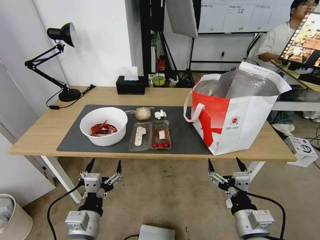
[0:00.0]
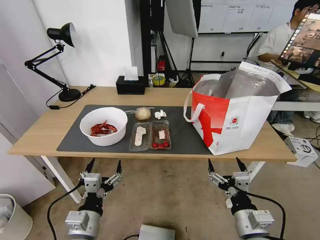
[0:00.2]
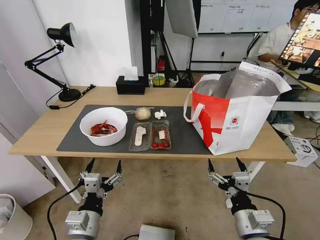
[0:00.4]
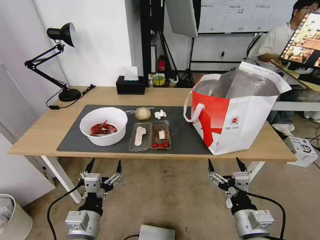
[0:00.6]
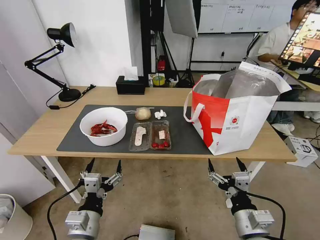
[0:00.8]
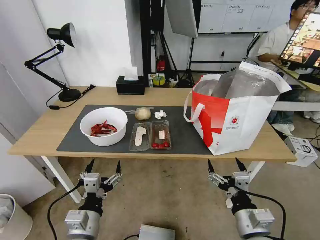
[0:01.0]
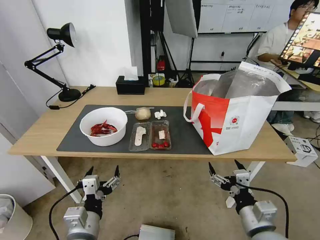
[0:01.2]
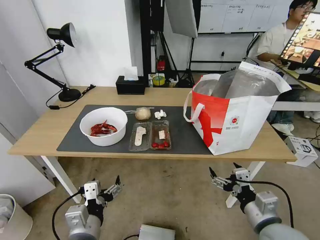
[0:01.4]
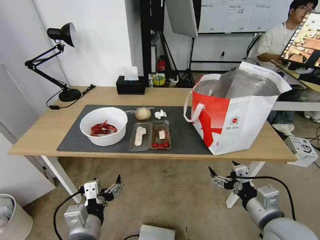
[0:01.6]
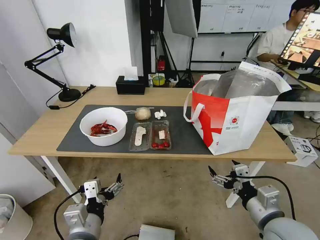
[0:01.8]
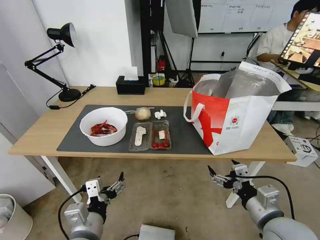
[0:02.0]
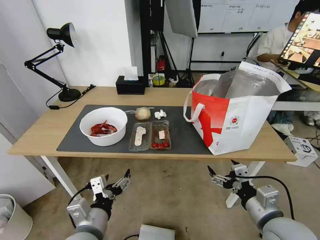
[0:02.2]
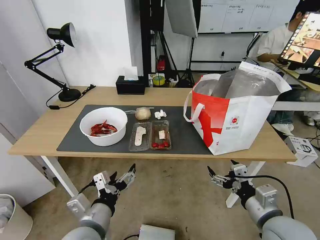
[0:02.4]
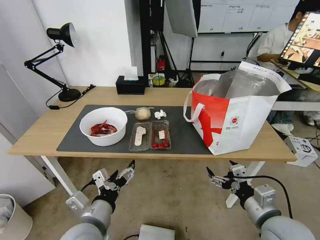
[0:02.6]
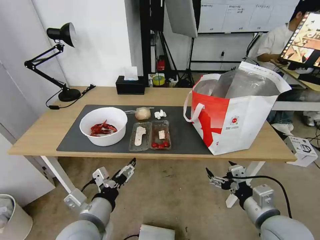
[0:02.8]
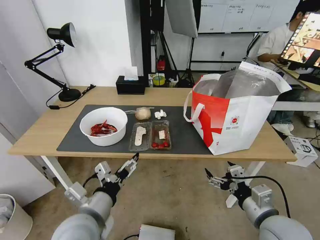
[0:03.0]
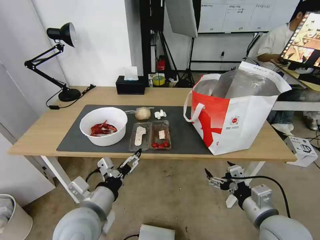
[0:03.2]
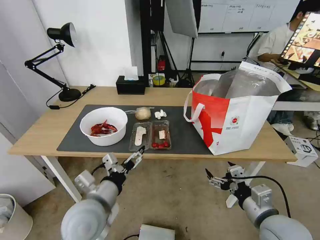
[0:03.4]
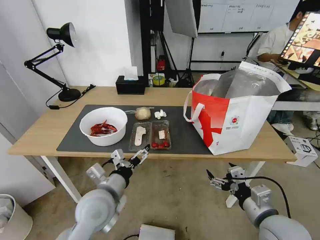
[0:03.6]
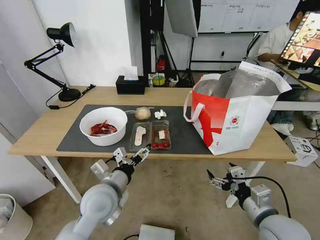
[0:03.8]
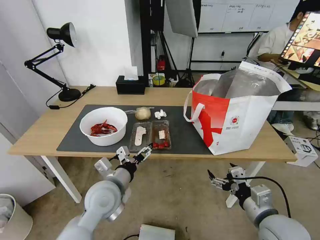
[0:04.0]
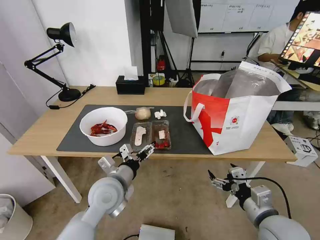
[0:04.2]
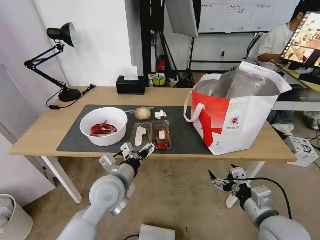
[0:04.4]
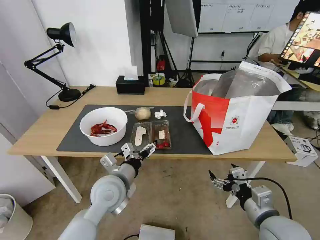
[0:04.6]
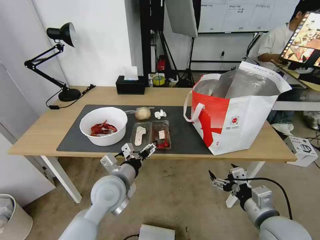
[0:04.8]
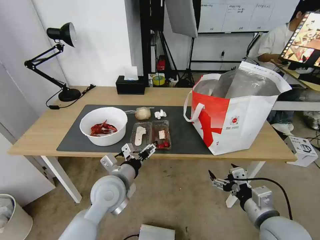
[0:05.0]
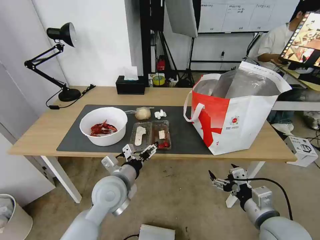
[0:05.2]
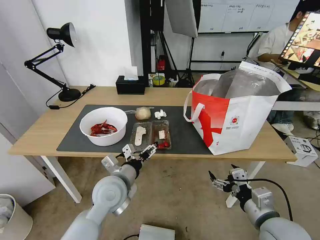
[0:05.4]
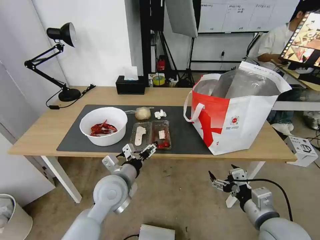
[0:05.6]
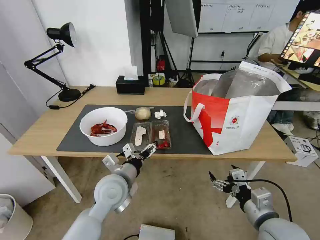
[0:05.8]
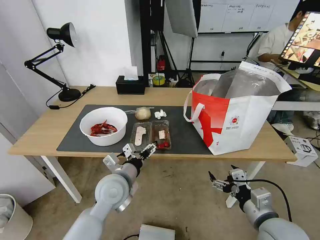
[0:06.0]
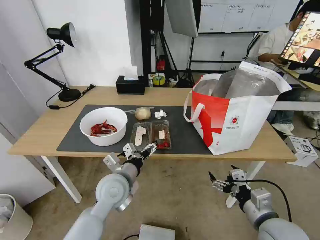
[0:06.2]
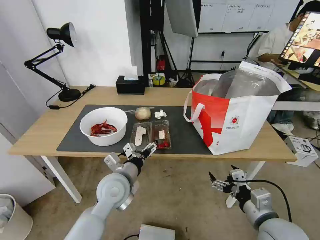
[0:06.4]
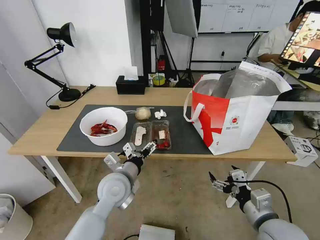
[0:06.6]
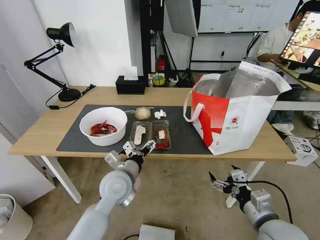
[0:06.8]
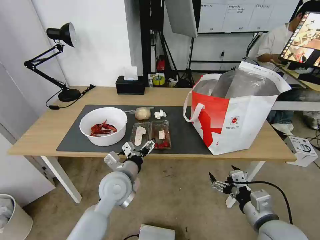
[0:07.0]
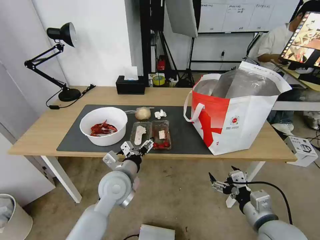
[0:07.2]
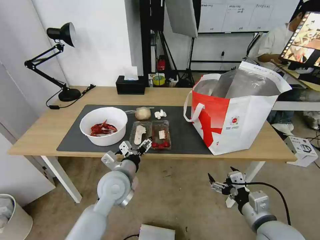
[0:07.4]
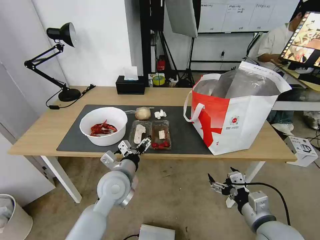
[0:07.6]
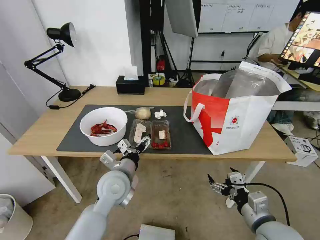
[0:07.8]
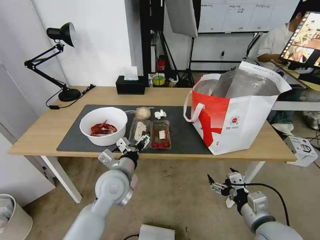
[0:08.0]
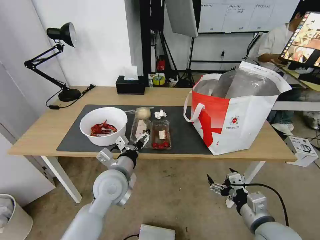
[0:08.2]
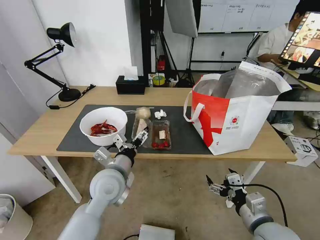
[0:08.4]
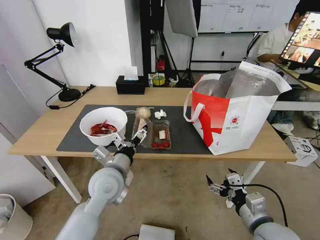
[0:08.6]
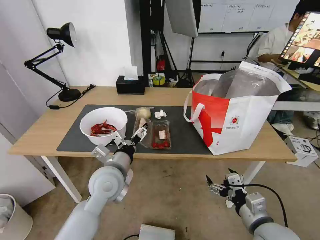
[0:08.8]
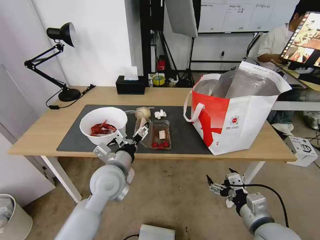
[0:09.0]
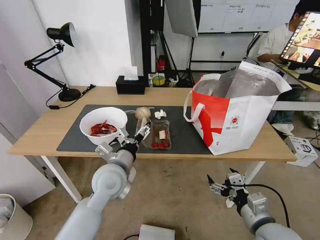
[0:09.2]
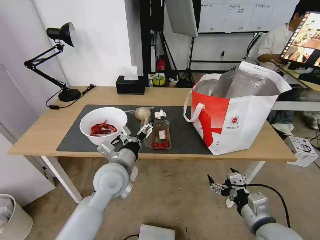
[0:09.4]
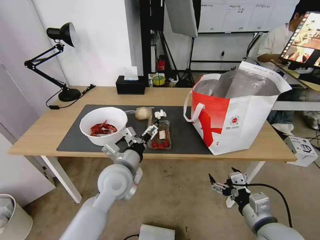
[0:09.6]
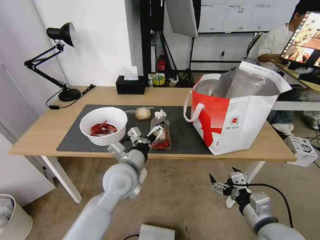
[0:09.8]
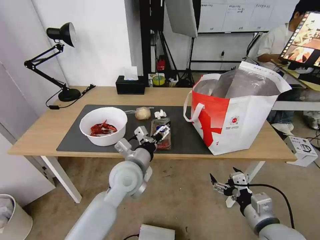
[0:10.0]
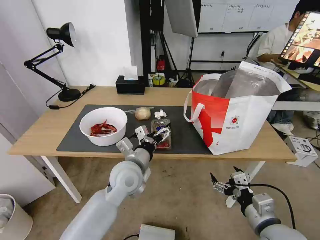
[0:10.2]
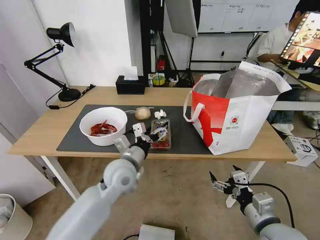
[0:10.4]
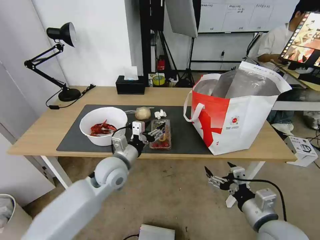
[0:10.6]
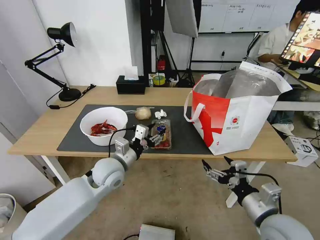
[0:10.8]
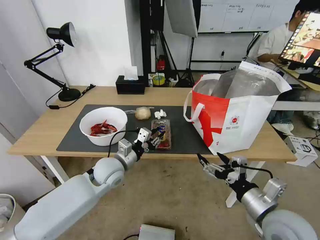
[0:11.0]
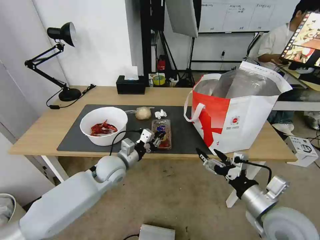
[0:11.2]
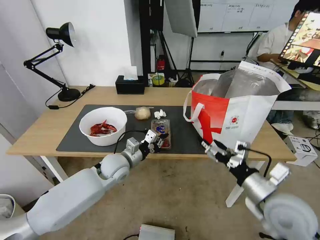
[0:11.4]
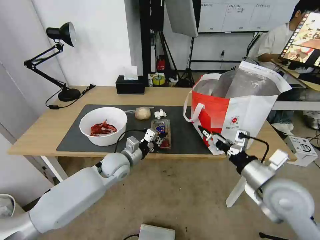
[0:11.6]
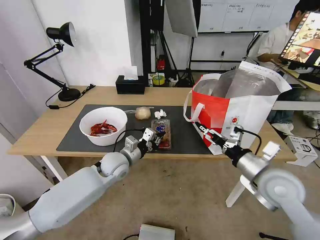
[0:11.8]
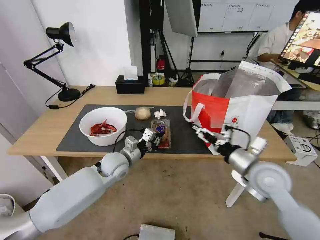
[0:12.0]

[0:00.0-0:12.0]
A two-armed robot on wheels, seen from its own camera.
Task of the whole recording: Pick up the trash from the table and place it into the takeout bag.
0:01.6 to 0:03.0: The left gripper moves roughly 5 cm.
0:03.0 to 0:04.4: The left gripper goes about 10 cm forward.
0:04.4 to 0:09.0: The grippers stay close to where they were, moving slightly.
0:10.4 to 0:12.0: The left gripper is displaced forward and downward by about 10 cm, and closes. The right gripper moves forward and upward, approximately 15 cm.

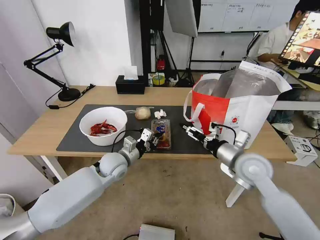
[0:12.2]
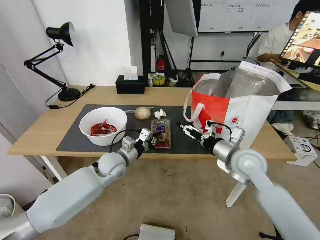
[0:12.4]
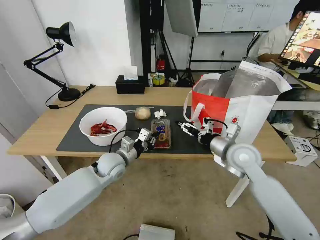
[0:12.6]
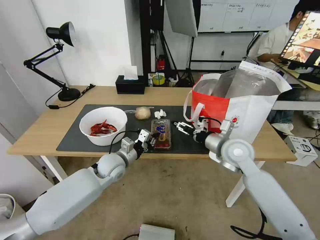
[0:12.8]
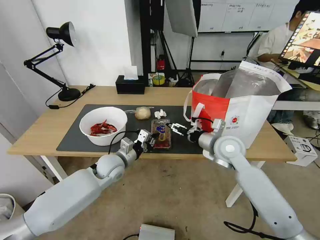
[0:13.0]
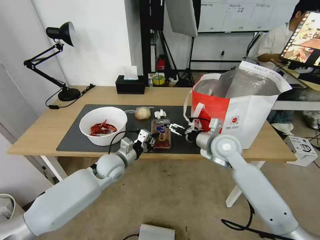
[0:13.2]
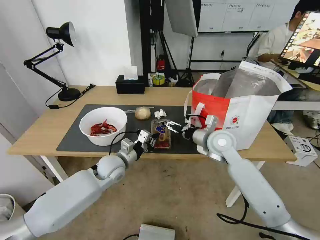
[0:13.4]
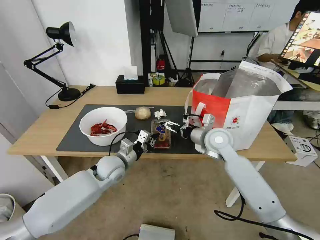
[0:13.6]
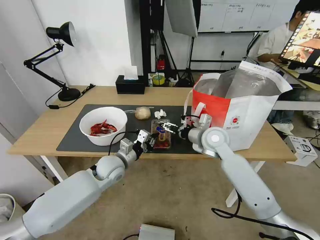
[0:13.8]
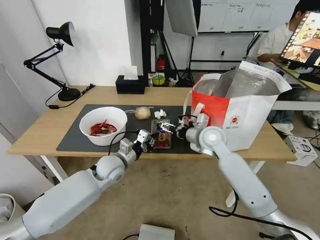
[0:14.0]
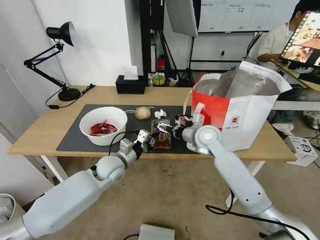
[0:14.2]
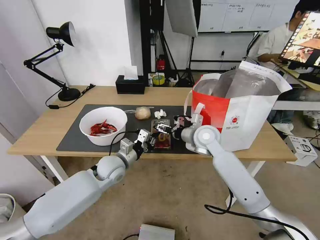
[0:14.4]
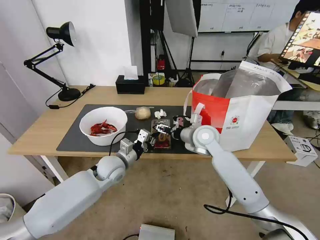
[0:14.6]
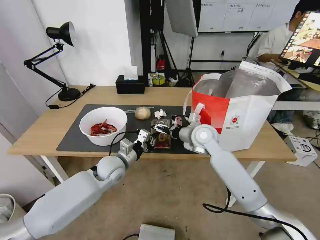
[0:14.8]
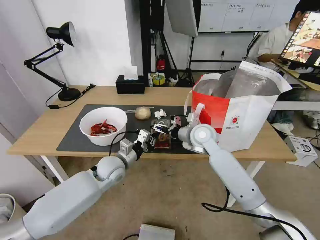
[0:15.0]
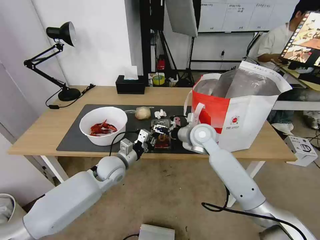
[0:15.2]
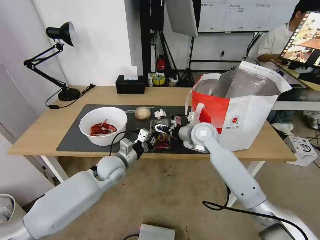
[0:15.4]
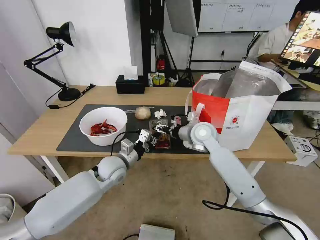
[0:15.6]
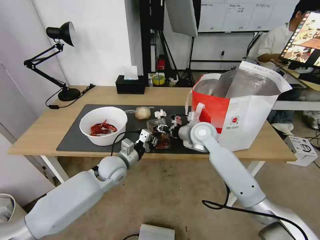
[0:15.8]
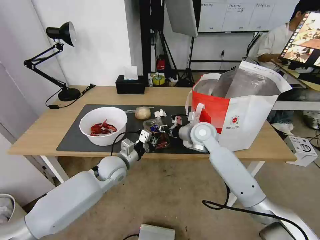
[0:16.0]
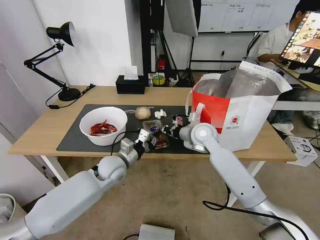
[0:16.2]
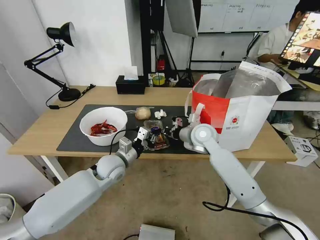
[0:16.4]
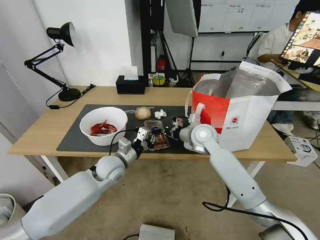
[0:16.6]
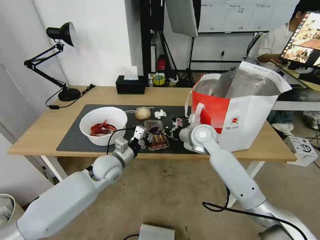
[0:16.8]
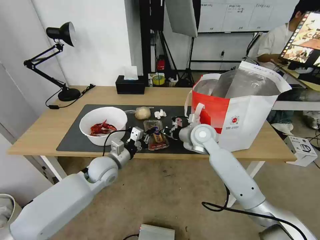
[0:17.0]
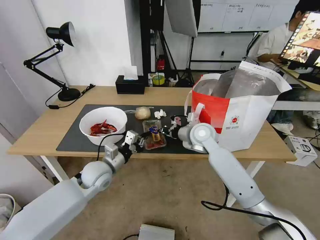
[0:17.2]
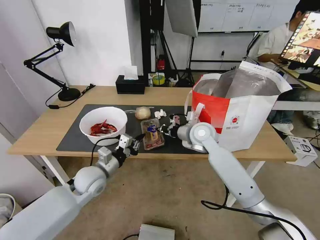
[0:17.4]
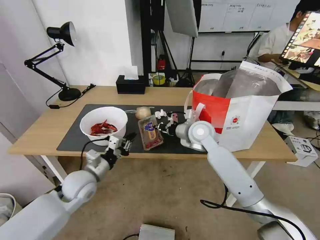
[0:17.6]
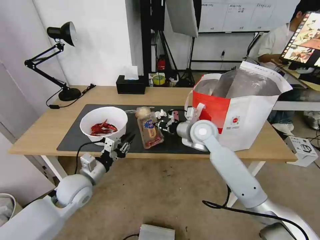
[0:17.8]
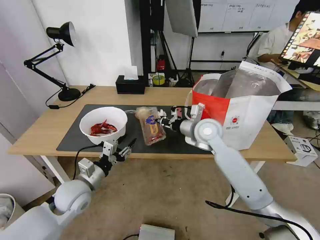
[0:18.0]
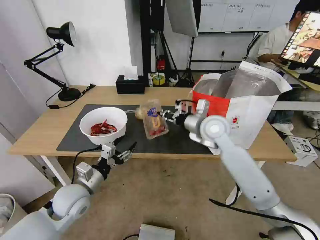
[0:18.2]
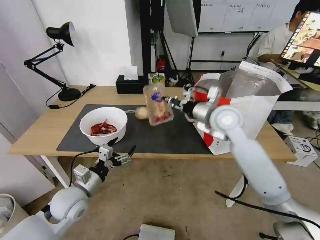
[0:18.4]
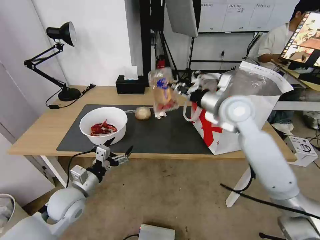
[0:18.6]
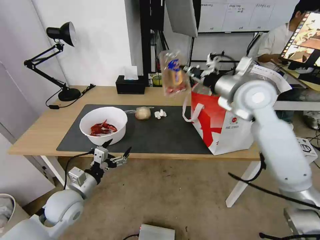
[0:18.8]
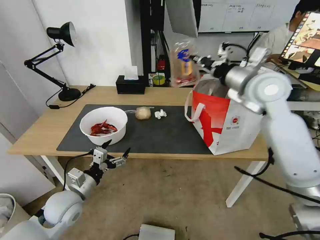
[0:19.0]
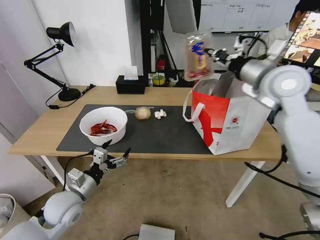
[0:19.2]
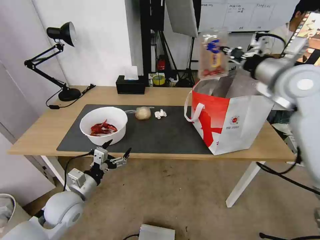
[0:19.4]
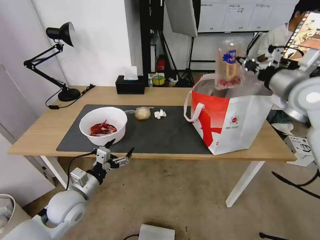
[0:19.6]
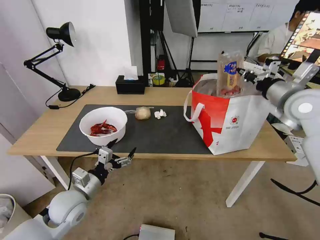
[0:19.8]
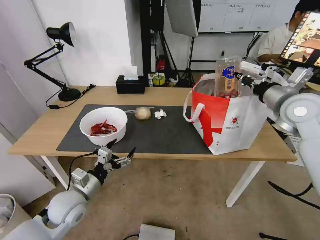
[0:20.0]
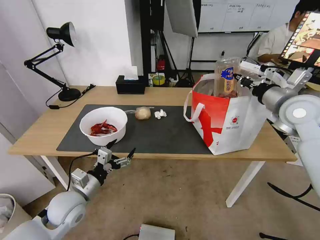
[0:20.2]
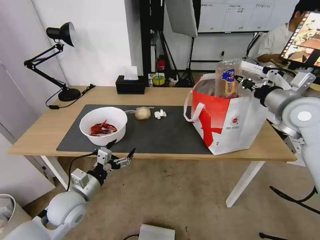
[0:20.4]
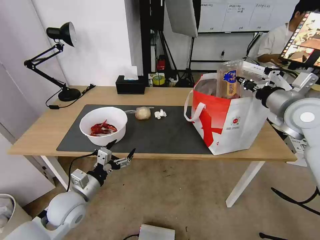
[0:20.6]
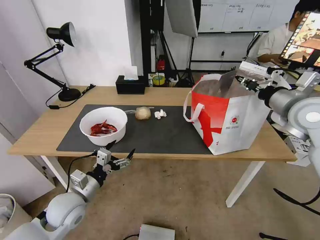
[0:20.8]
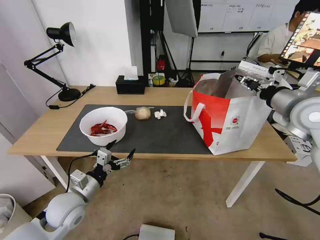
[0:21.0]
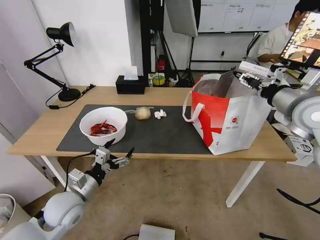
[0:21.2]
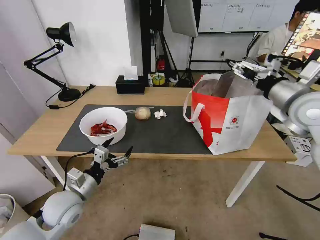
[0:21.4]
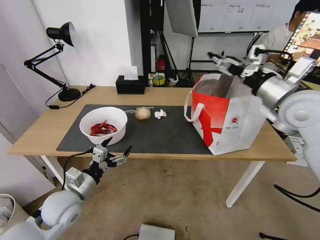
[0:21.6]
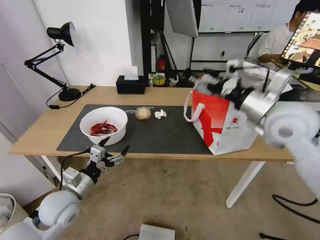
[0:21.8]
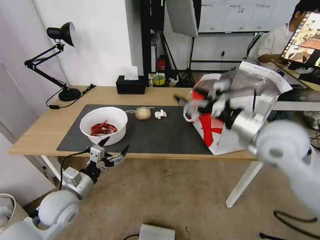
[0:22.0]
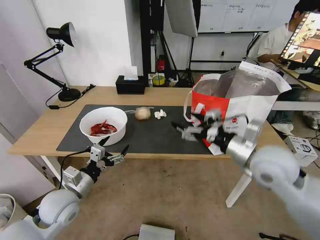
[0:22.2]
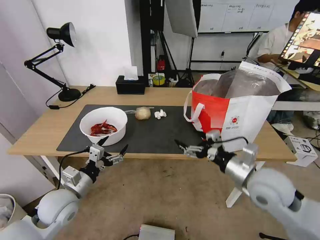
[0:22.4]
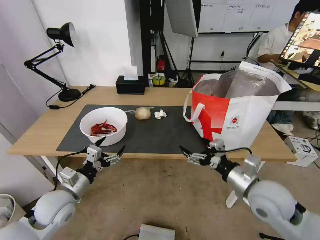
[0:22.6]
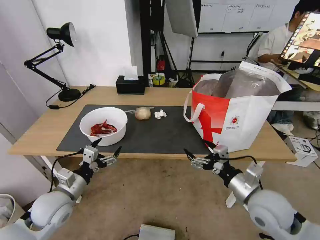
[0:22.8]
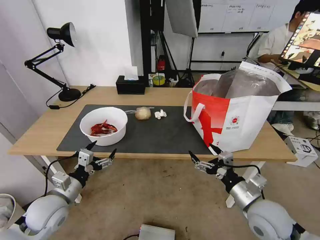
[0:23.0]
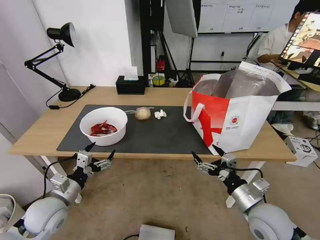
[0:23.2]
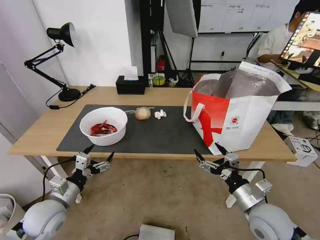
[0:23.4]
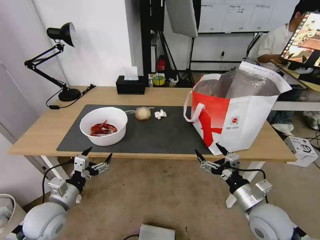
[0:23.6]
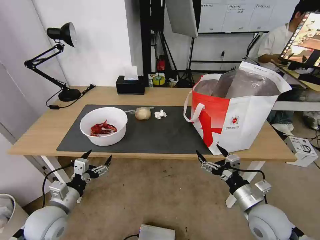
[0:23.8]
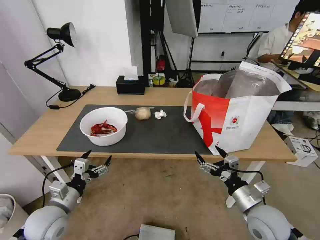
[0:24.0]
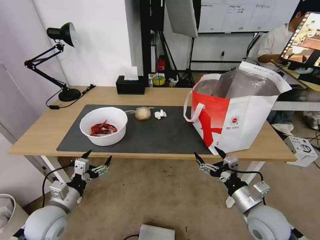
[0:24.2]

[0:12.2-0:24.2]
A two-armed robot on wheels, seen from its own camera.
Task of the whole recording: Pick up the trash from the table and place it into the takeout bag.
0:12.2 to 0:13.8: The right gripper is displaced forward and to the left by approximately 15 cm.
0:13.8 to 0:15.2: The grippers move only a little.
0:15.2 to 0:16.6: The right gripper closes its fingers.
0:16.6 to 0:18.2: The right gripper moves upward, approximately 5 cm; the left gripper heads backward and to the left, covering approximately 15 cm, and opens its fingers.
0:18.2 to 0:19.8: The right gripper moves to the right and upward, approximately 20 cm.
0:19.8 to 0:21.2: The right gripper opens up.
0:21.2 to 0:22.6: The right gripper moves downward, backward and to the left, about 25 cm.
0:22.6 to 0:24.2: The left gripper ends up about 5 cm from where it was; the right gripper moves downward, about 10 cm.
